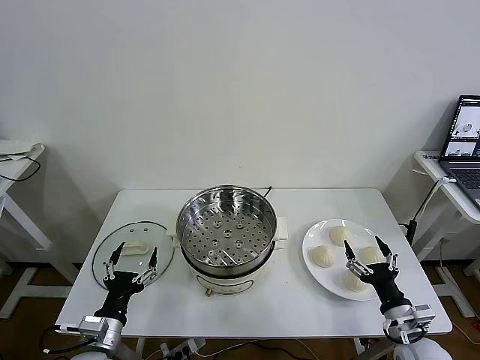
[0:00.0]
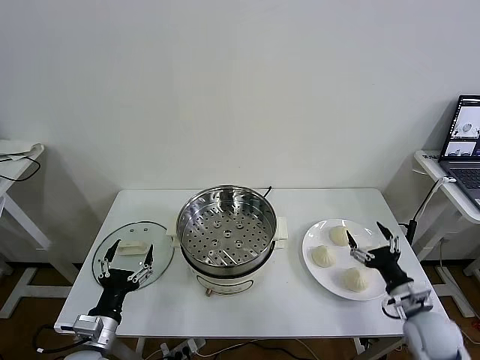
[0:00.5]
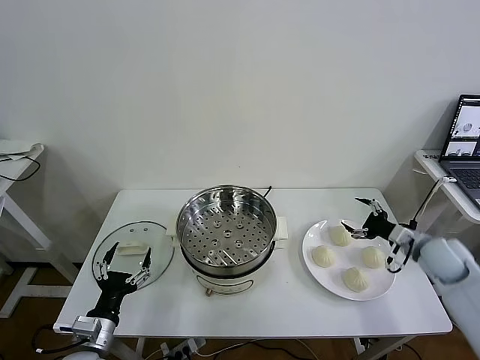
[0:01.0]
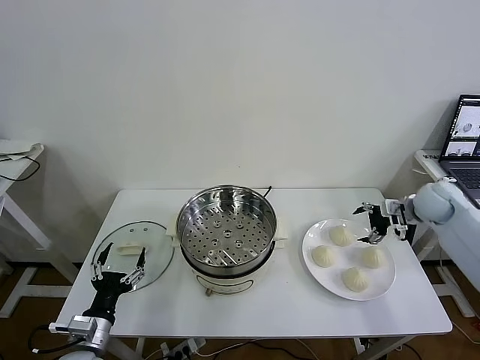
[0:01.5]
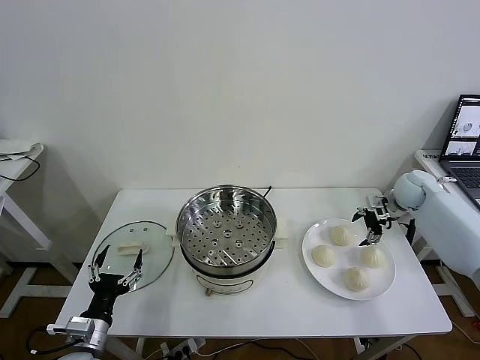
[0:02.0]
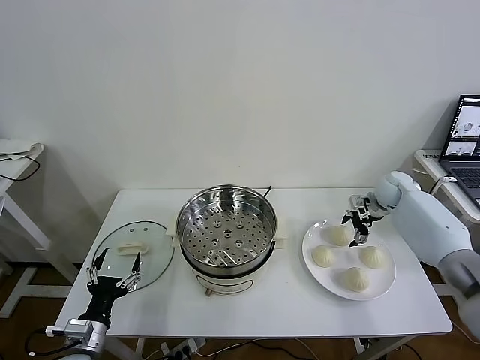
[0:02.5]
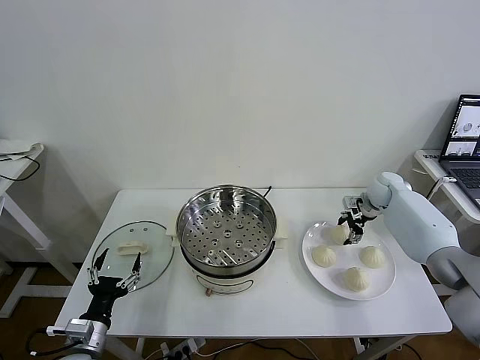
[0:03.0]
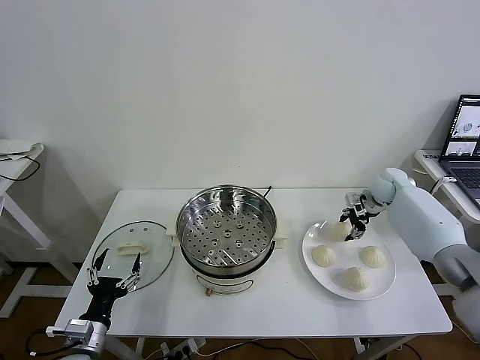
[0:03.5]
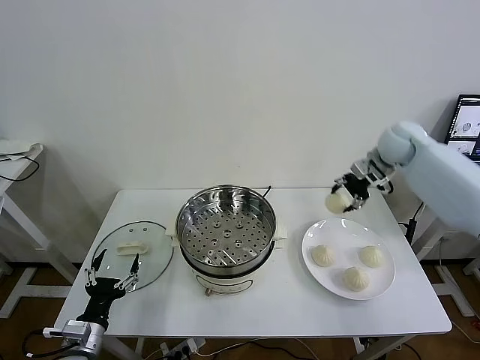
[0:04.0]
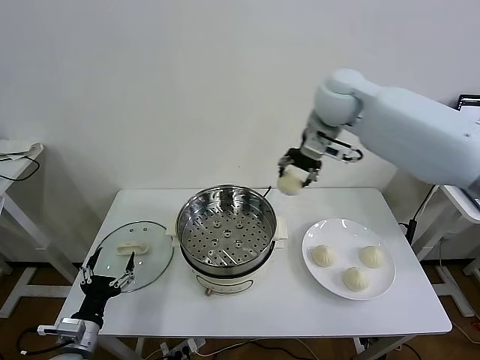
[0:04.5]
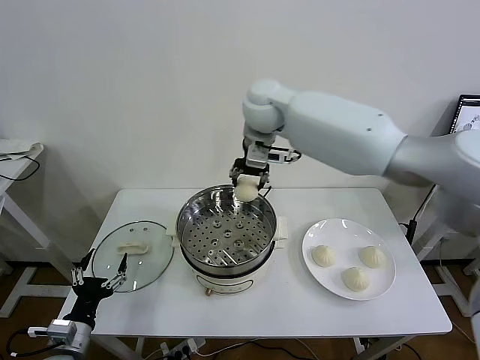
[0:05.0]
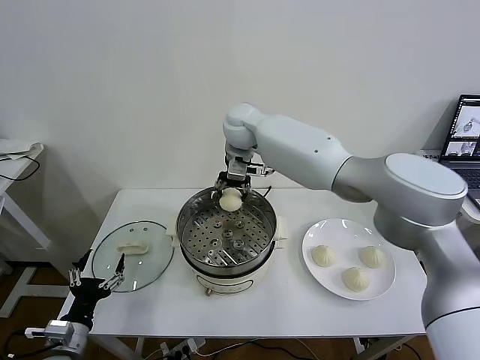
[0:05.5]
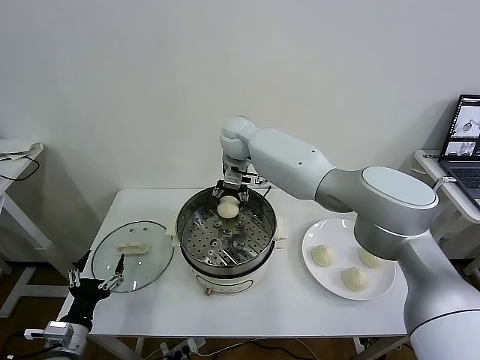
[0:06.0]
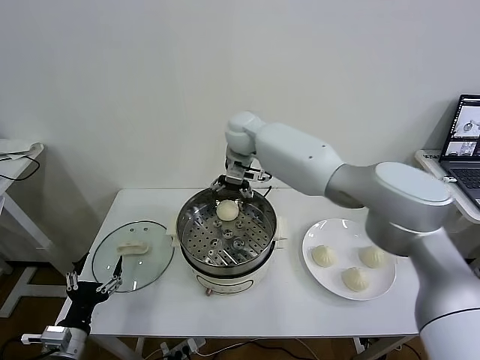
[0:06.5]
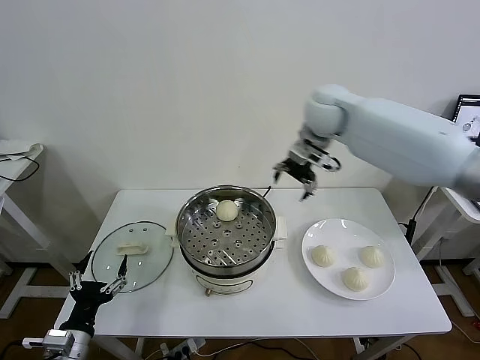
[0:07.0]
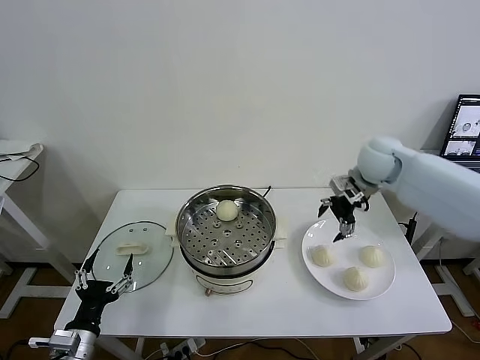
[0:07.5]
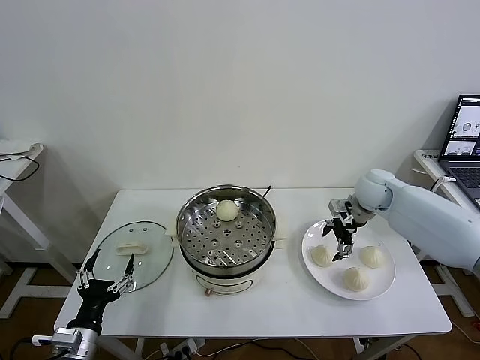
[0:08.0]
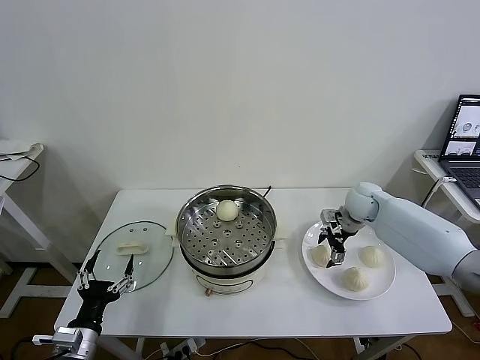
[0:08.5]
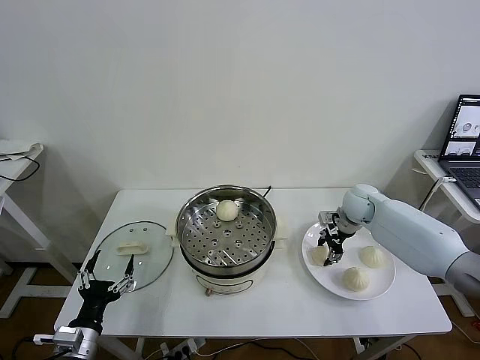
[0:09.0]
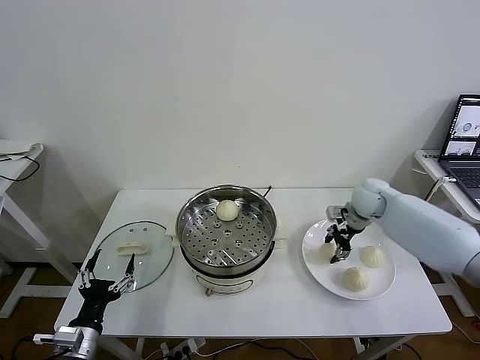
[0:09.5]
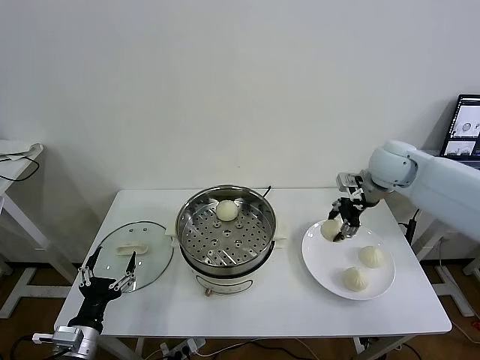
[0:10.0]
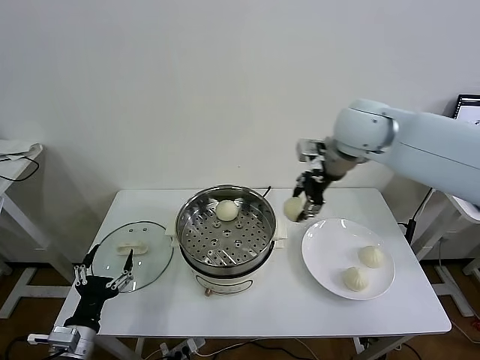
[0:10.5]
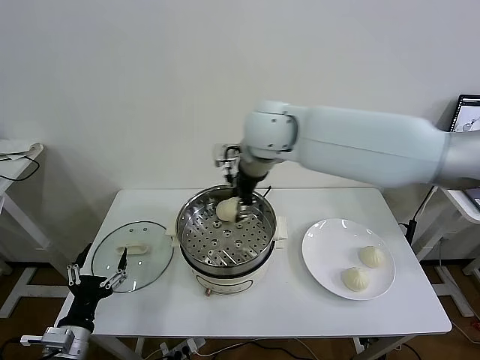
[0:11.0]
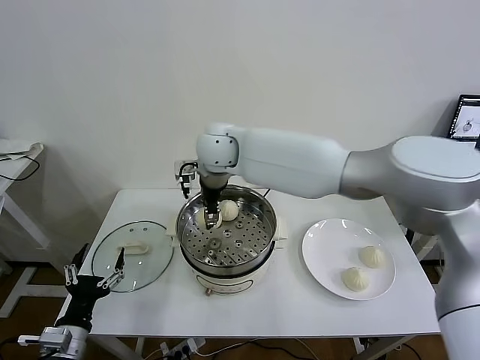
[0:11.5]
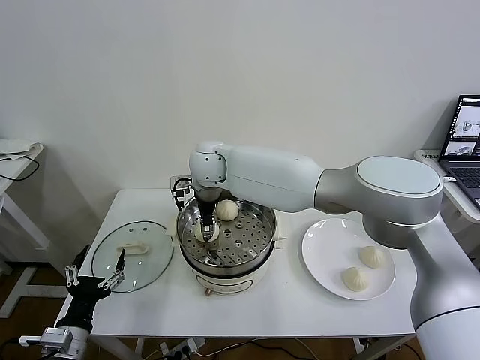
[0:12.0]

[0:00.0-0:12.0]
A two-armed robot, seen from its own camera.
Task of the whole recording: take steamed baozi put them in steamer then cover it.
Step, 0.0 to 3.0 s: Grasp the baozi in the plate with right gripper.
Step, 3.5 to 6.0 s: Place the baozi on the steamer with right gripper.
Step, 6.5 to 9.0 s: Grasp the baozi in the plate with right gripper.
2.0 to 4.0 s: The right gripper heads upward and to the left, covering some 20 cm, and closes up.
4.0 to 6.0 s: The right gripper shifts roughly 35 cm to the left.
6.0 to 8.0 s: The right gripper moves to the right, about 35 cm, and opens its fingers.
8.0 to 10.0 s: The right gripper moves upward, about 15 cm, and closes up.
10.0 to 12.0 s: The right gripper is displaced to the left by roughly 40 cm, and opens up.

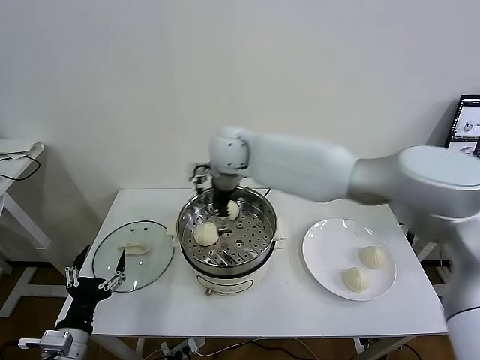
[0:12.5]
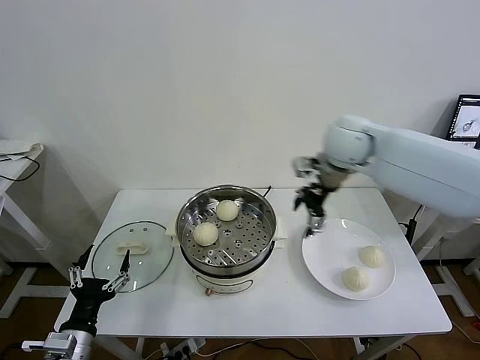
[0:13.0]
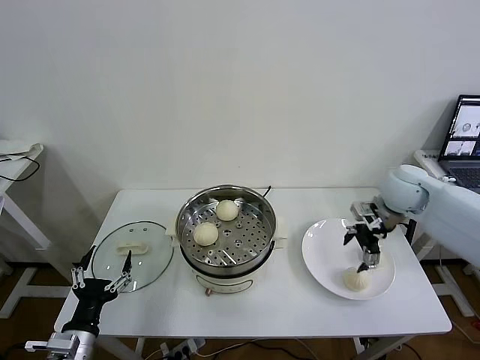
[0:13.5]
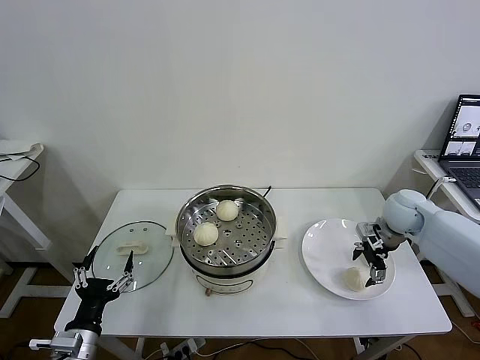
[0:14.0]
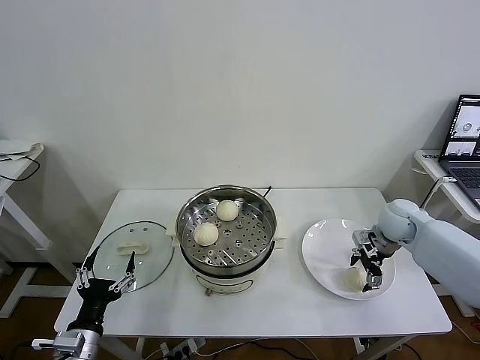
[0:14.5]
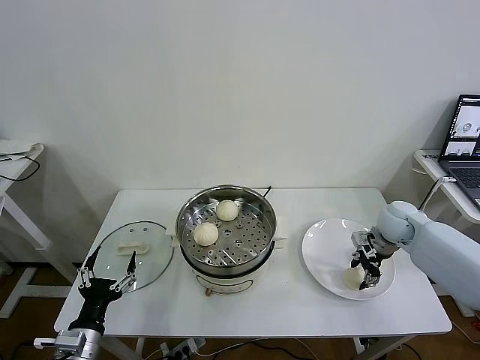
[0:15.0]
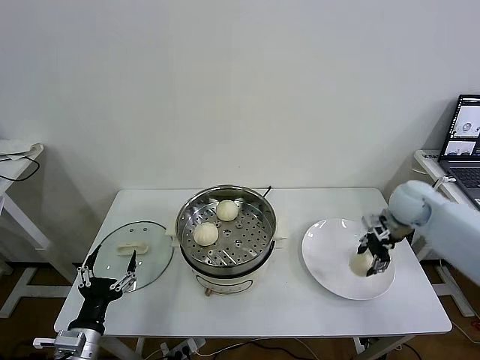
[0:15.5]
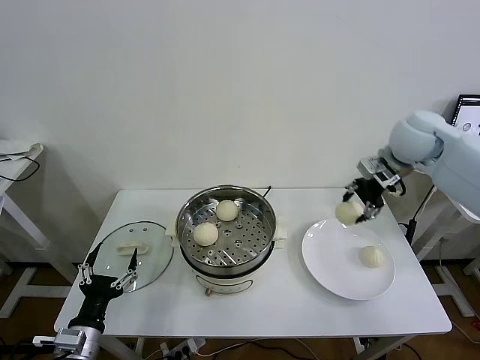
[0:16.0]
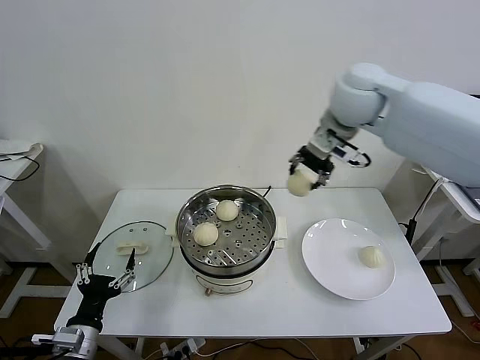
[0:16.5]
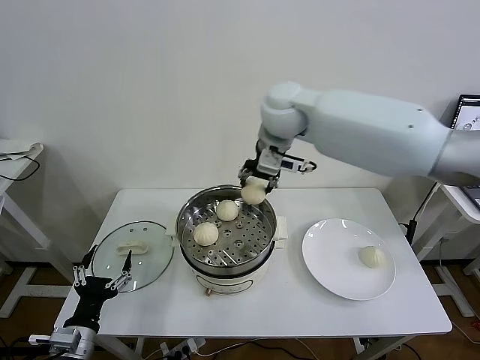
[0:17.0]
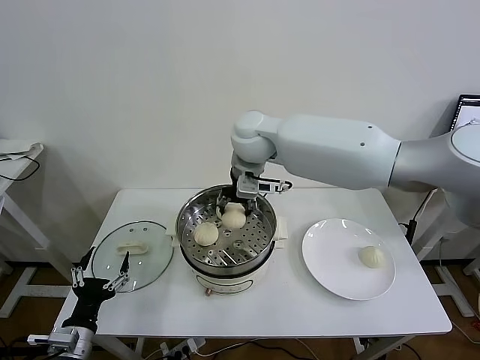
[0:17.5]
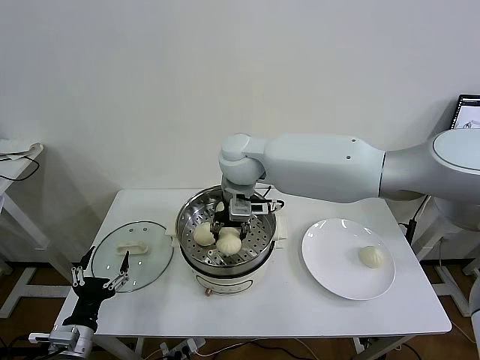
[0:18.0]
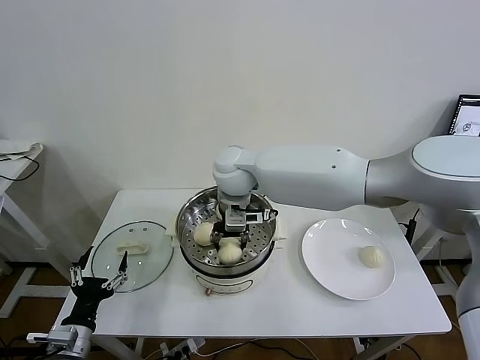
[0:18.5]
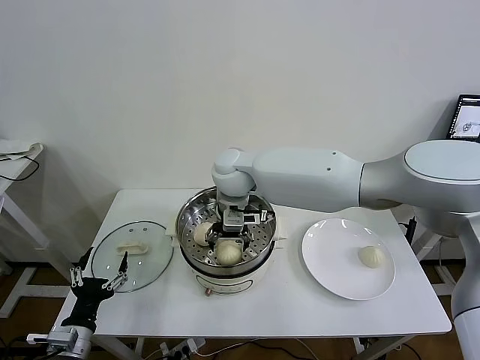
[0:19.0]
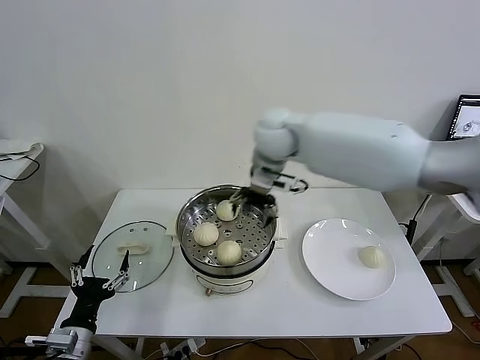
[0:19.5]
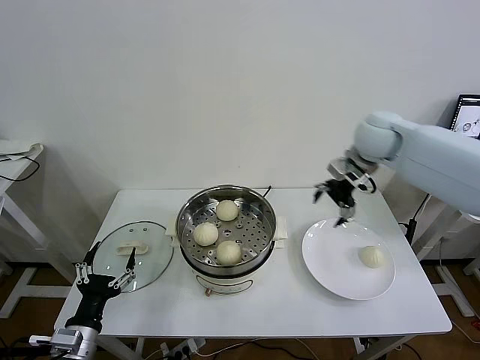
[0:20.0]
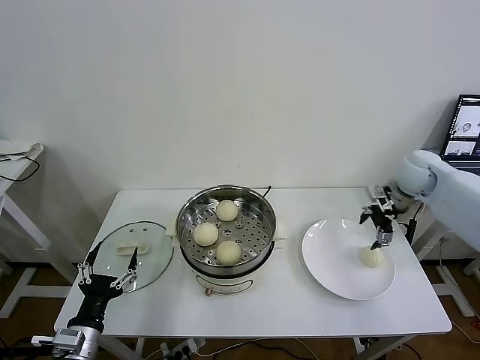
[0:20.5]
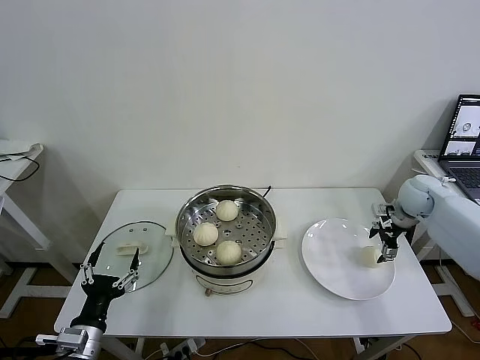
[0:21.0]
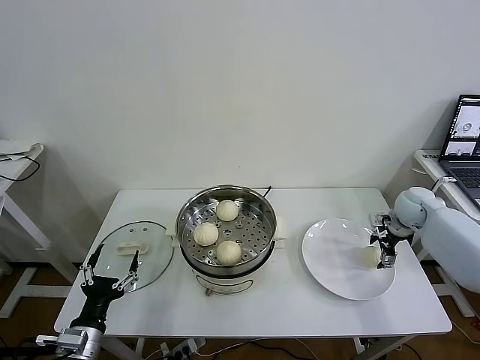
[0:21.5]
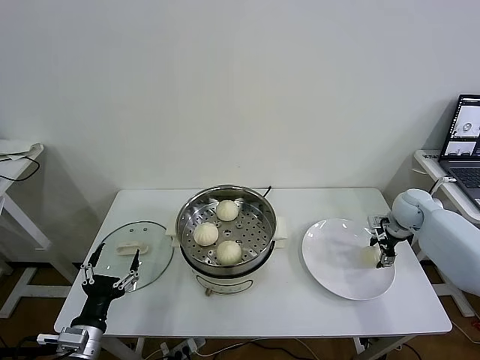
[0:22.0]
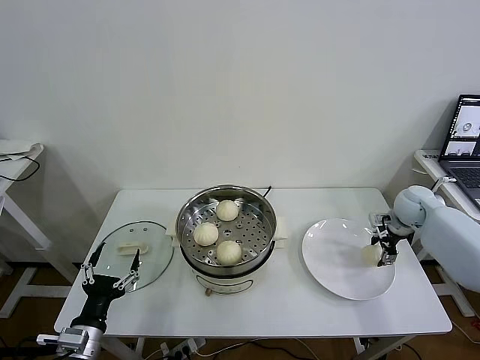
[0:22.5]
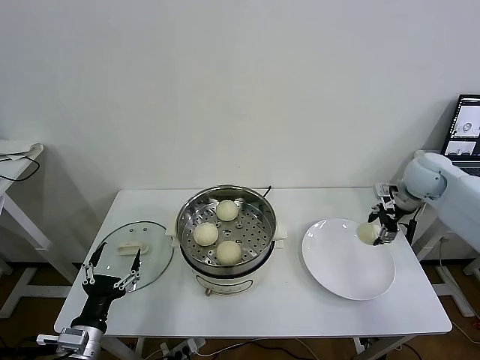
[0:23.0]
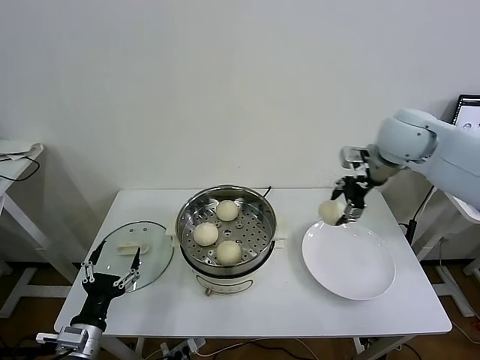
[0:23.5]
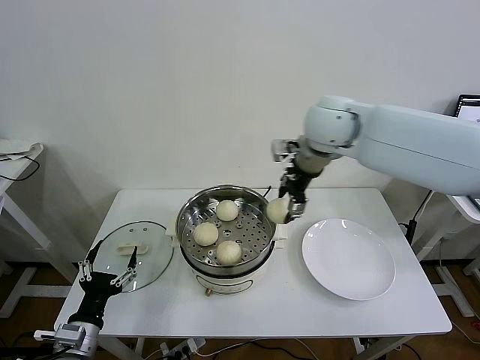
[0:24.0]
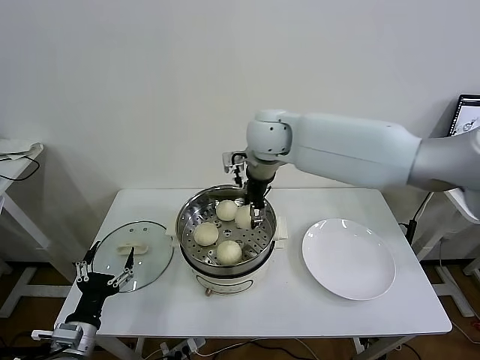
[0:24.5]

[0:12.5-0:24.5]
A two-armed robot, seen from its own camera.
Task of the whole recording: take steamed baozi put them in steamer then cover it.
Step, 12.5 to 15.0 s: Grasp the baozi in the plate with right gripper.
Step, 15.5 to 19.0 s: Place the baozi on the steamer with right gripper.
Step, 19.5 to 22.0 s: Grasp the baozi in the plate with right gripper.
12.5 to 14.5 s: The right gripper travels to the right and downward by some 40 cm.
14.5 to 16.5 s: The right gripper shifts about 35 cm upward and to the left, and closes up.
16.5 to 18.5 s: The right gripper travels to the left and downward by approximately 25 cm.
18.5 to 20.5 s: The right gripper moves to the right, some 40 cm, and opens its fingers.
20.5 to 22.5 s: The right gripper shifts about 10 cm downward, and closes.
22.5 to 24.5 s: The right gripper shifts some 40 cm to the left and upward.

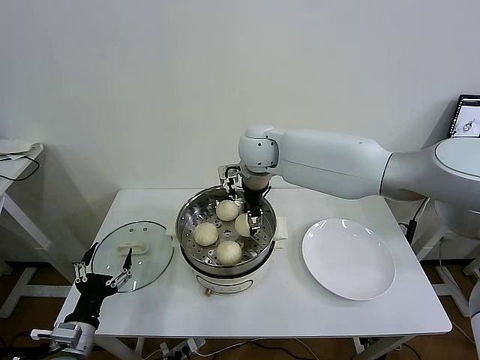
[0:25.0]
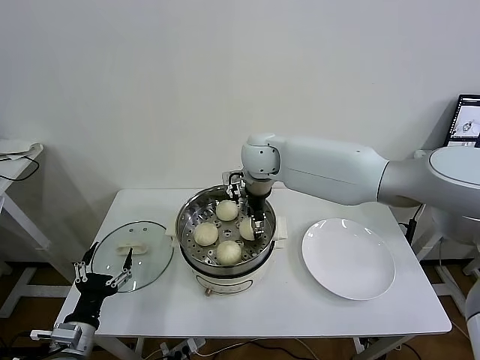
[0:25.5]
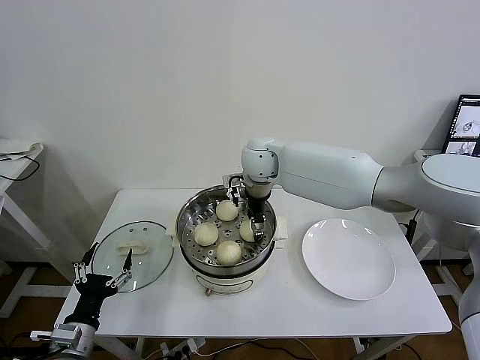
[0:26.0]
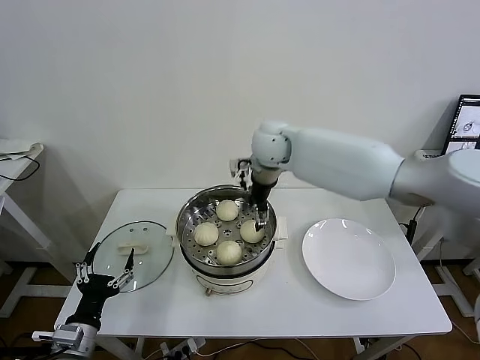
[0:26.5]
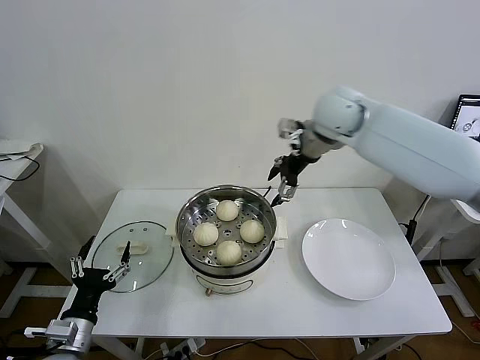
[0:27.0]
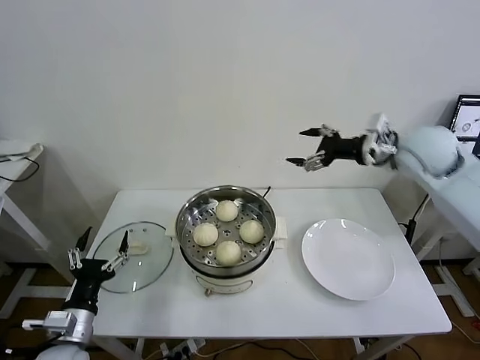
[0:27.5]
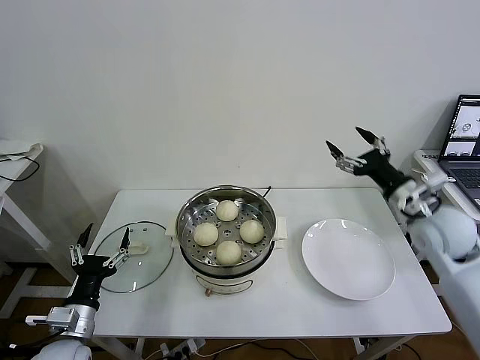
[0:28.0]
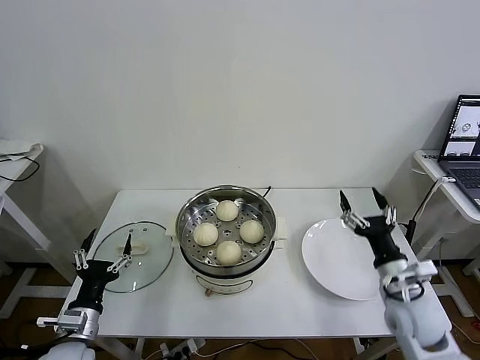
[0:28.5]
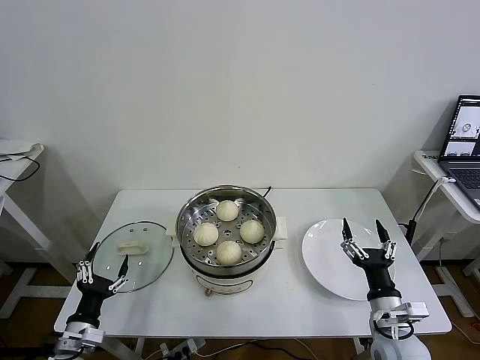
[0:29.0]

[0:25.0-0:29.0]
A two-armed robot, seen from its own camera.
Task of the whole recording: take steamed baozi put them in steamer then cover it.
25.0 to 27.0 s: The right gripper shifts about 15 cm to the right and upward, and opens.
27.0 to 29.0 s: The right gripper travels downward and backward by approximately 50 cm. The left gripper is displaced downward by approximately 5 cm.
